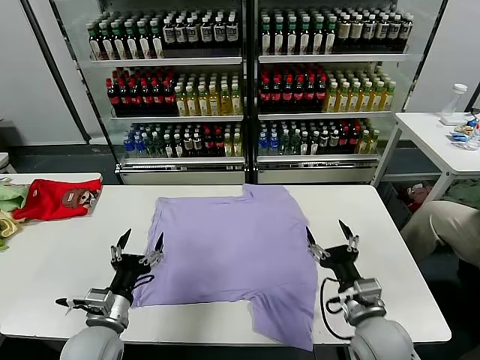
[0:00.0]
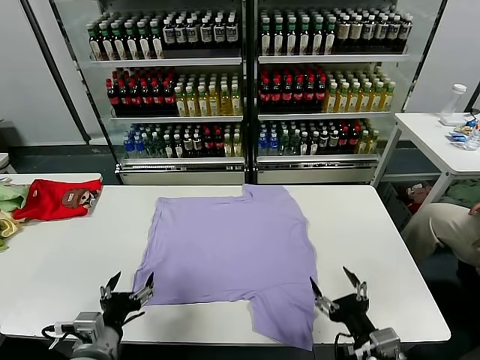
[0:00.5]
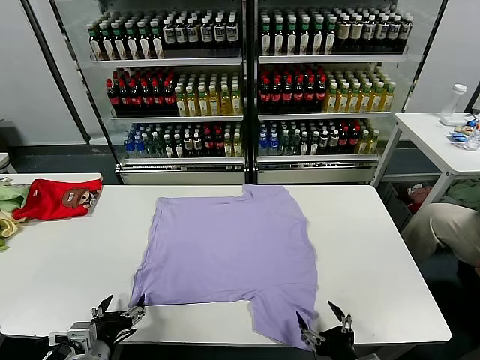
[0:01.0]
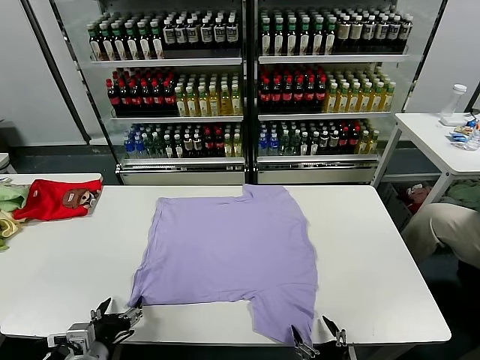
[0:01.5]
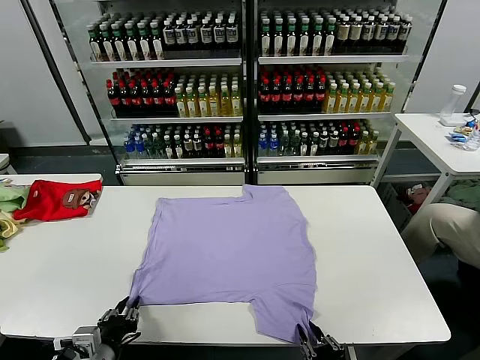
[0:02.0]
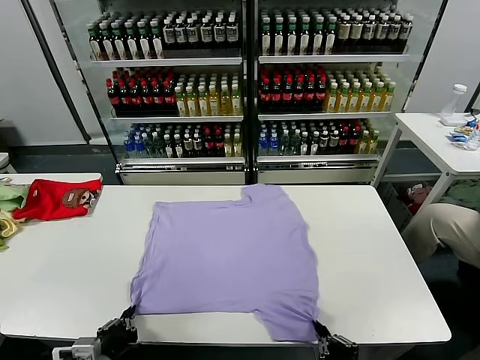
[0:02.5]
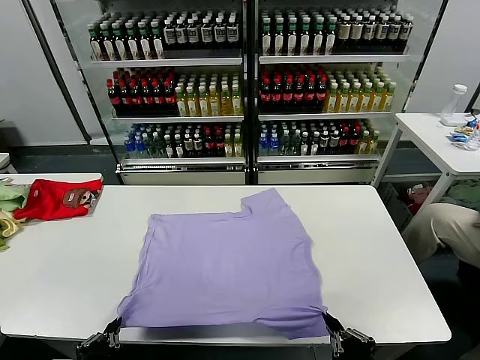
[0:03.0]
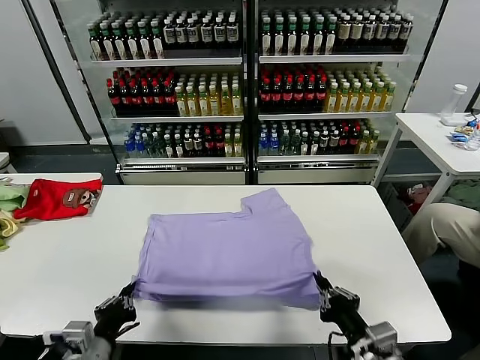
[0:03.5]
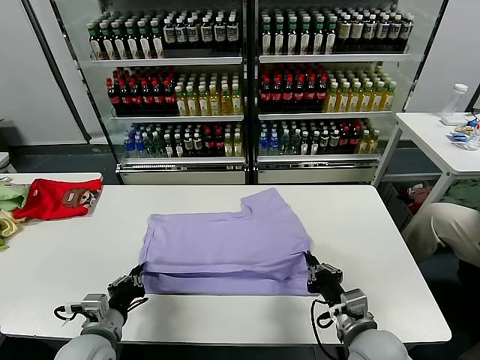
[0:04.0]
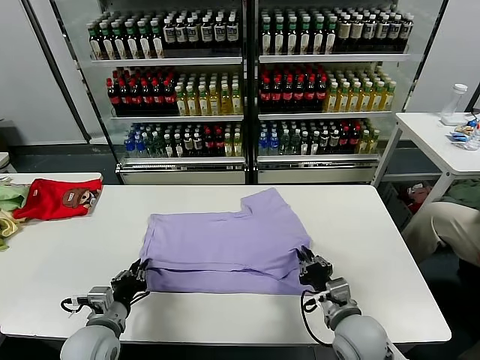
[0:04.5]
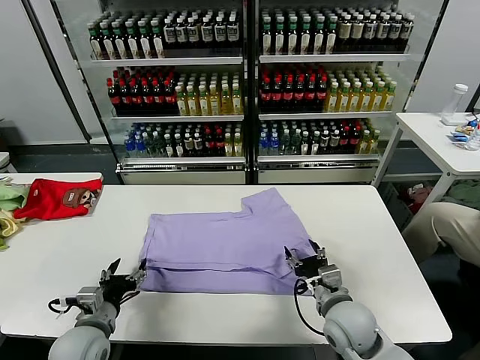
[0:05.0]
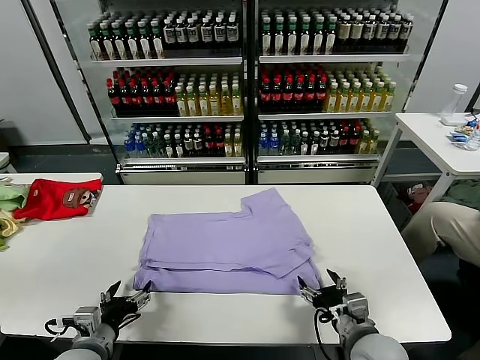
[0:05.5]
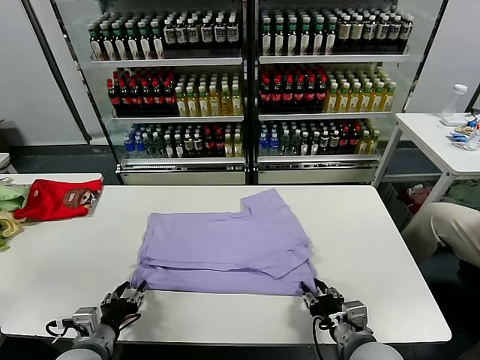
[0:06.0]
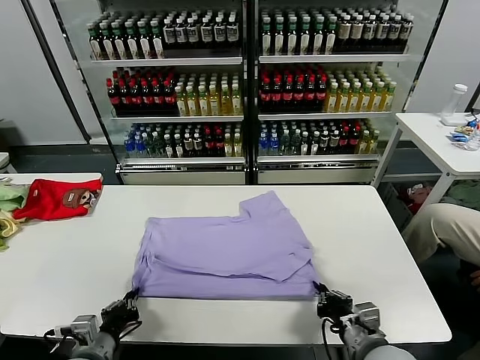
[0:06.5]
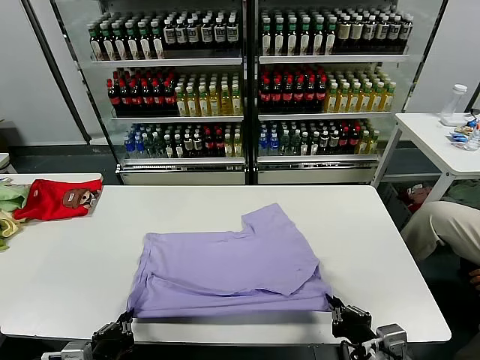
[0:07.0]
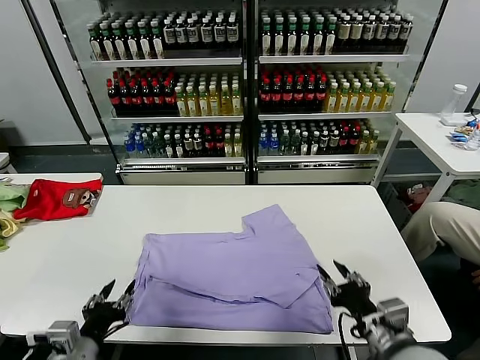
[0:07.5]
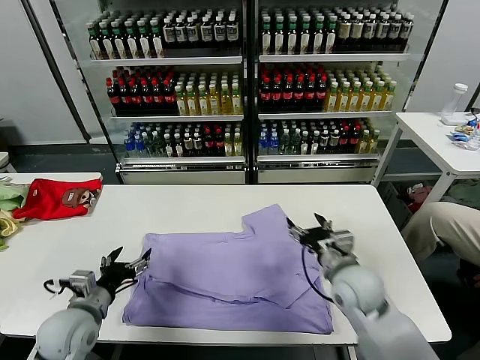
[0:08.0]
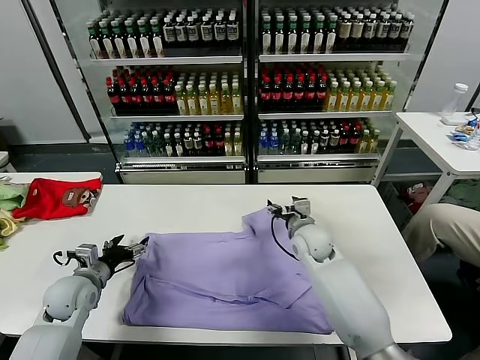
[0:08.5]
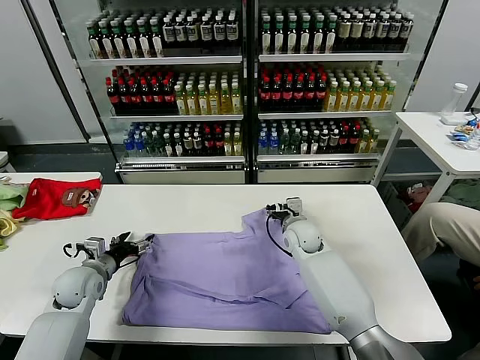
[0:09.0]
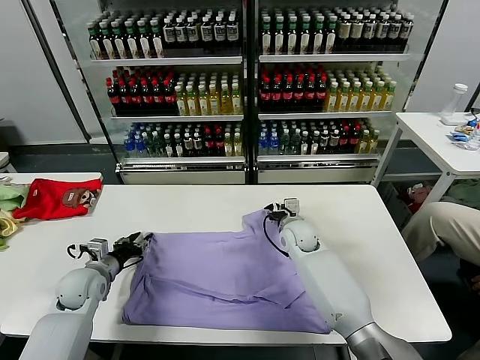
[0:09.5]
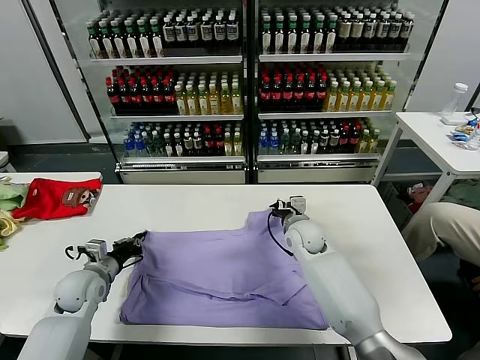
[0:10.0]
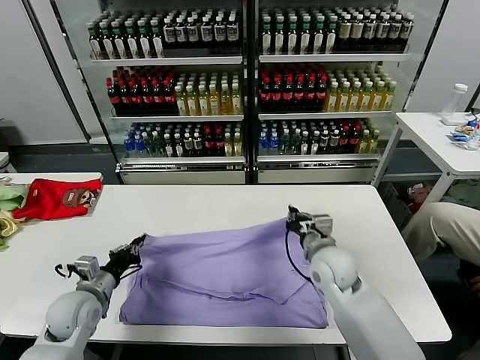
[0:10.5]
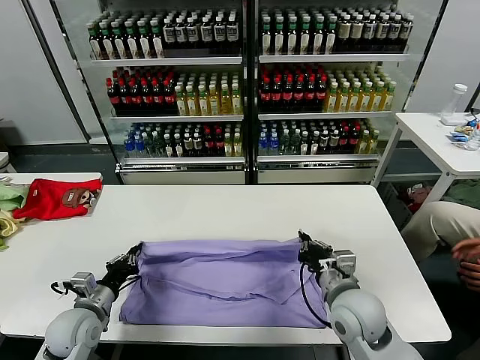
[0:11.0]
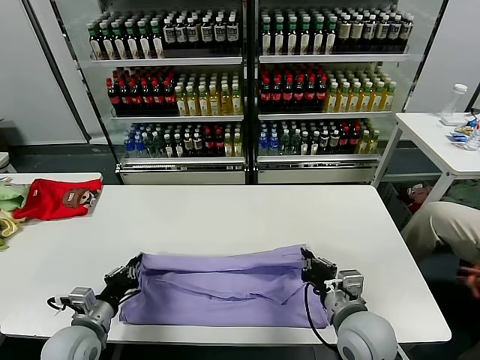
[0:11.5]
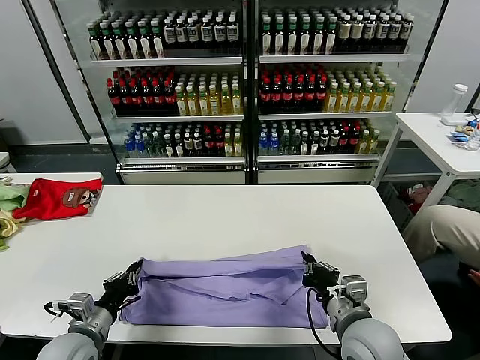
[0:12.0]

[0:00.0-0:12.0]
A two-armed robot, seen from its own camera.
Task of the whole recording: fold and organize the clothes.
Step, 0:00.0 to 0:02.0: use both grippers simultaneously to clamp the lower edge of the clothing fabric.
Step, 0:02.5 to 0:04.5: use both grippers to drag the lower edge of the fabric forward and fold it over the upper edge.
Step, 0:05.0 to 0:07.0: Drag the clothes downward with both gripper.
Step, 0:07.5 to 0:09.5: use both grippers simultaneously to clamp the upper edge of the clothing fabric.
0:02.0 to 0:04.0: The right gripper moves forward, about 15 cm. Meanwhile the left gripper shifts approximately 5 cm forward.
0:04.0 to 0:06.0: The left gripper opens; the right gripper opens and closes again.
0:06.0 to 0:08.0: The left gripper goes roughly 5 cm forward, and opens its fingers. Meanwhile the right gripper goes about 15 cm forward, and opens up.
0:08.0 to 0:10.0: The grippers both shift forward by approximately 10 cm. The right gripper closes its fingers; the left gripper closes up.
0:10.0 to 0:12.0: The right gripper is displaced backward by approximately 25 cm, while the left gripper goes roughly 15 cm backward.

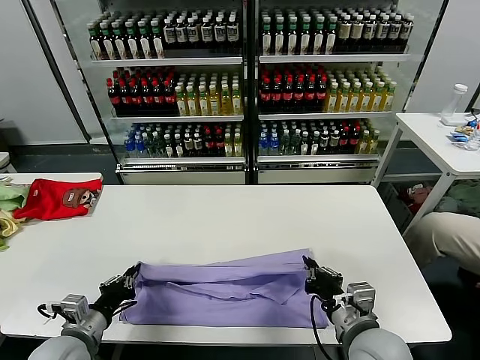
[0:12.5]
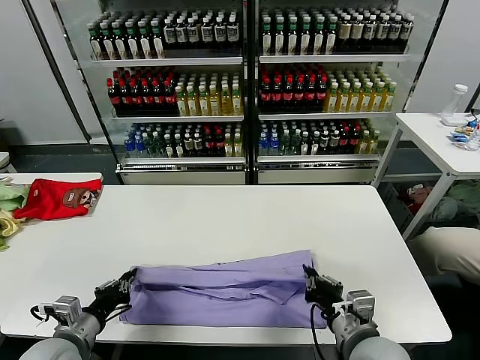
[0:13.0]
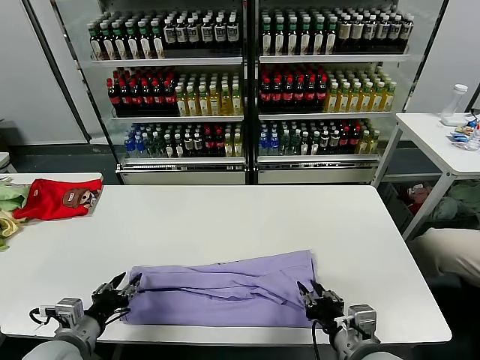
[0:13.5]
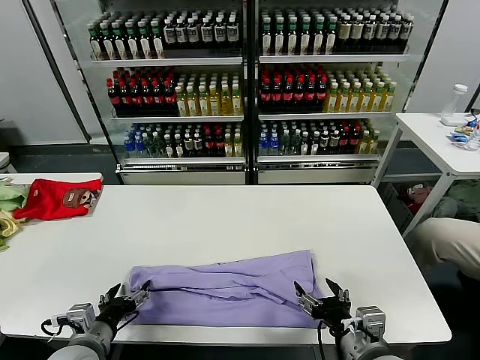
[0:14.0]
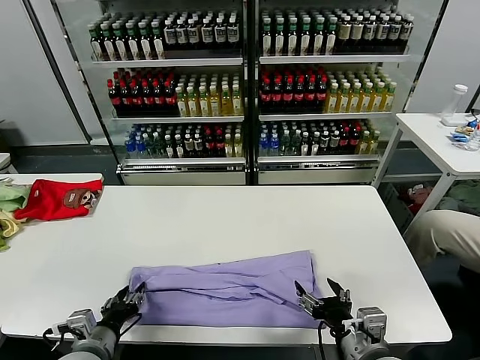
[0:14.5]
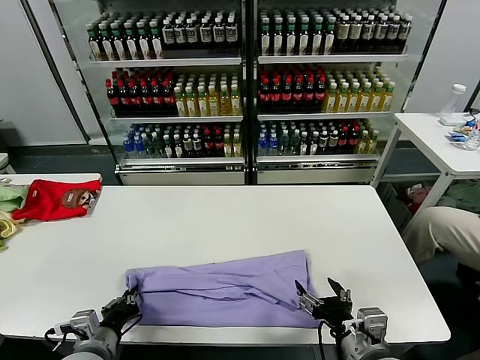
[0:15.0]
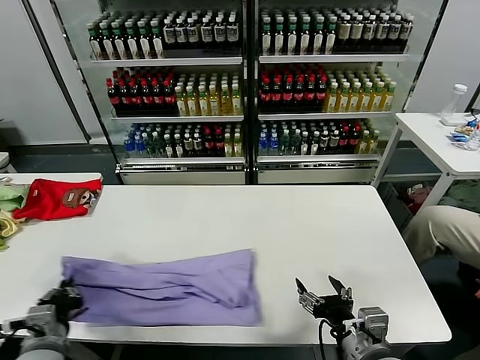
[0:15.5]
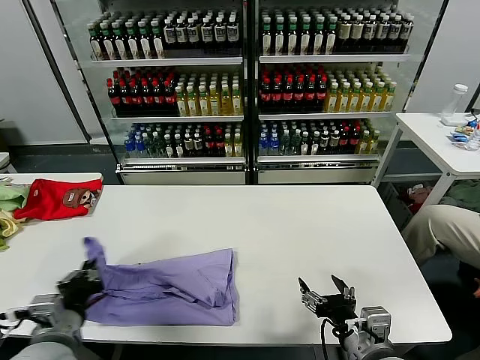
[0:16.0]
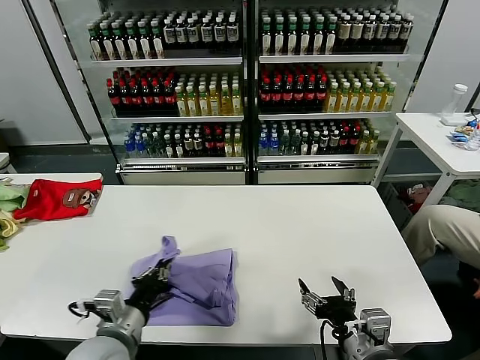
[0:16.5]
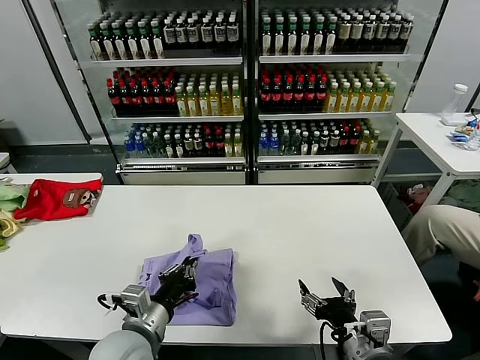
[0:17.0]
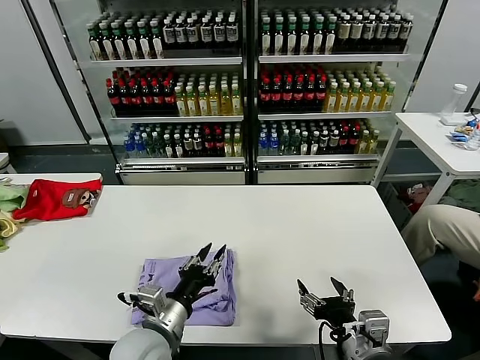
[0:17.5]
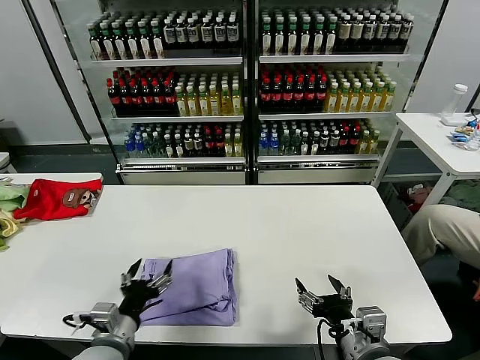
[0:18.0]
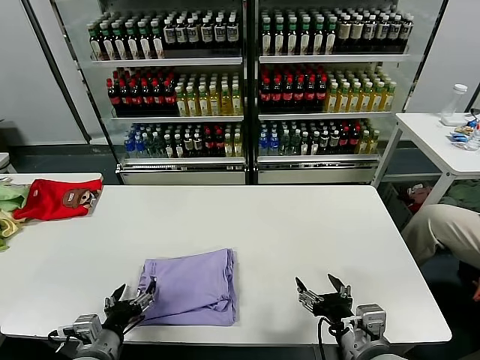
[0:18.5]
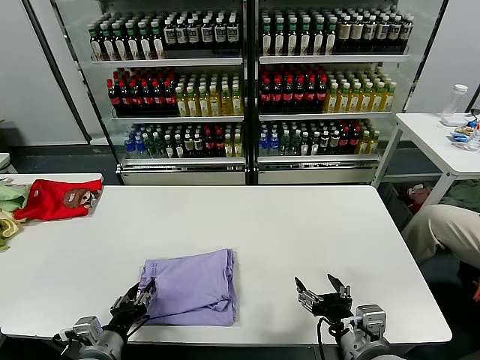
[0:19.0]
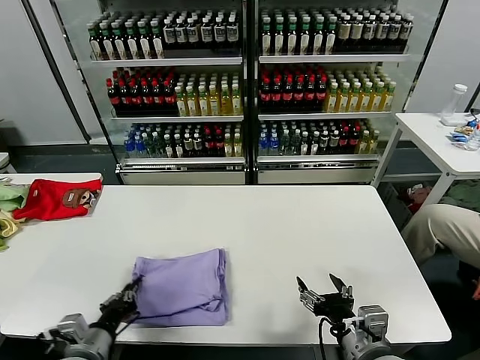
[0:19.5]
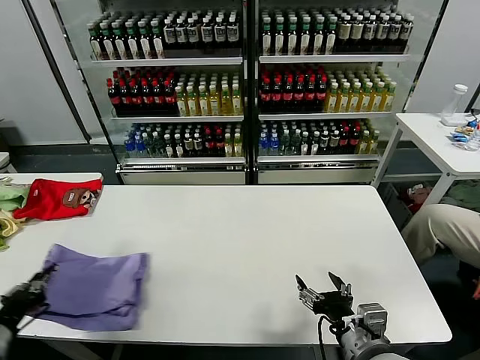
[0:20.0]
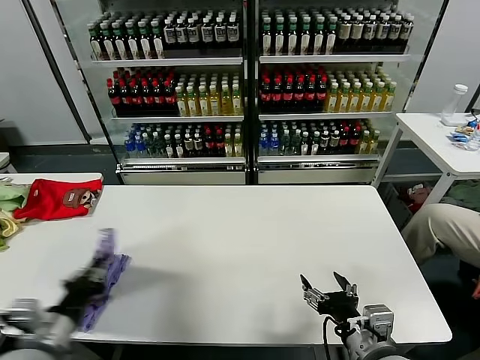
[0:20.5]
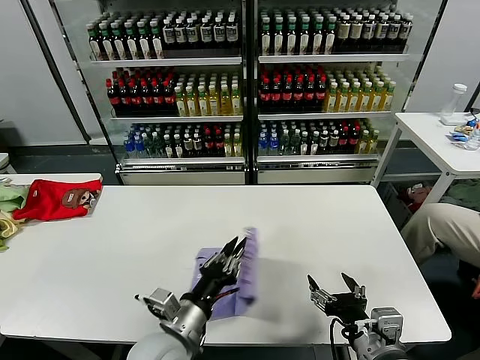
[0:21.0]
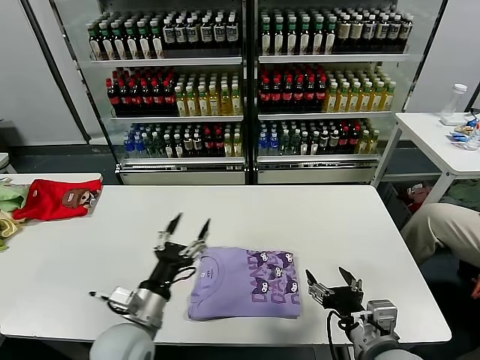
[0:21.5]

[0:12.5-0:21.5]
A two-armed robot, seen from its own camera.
Task of the whole recording: fold and organize the clothes.
Step, 0:13.5 to 0:14.5: use the left gripper to clamp the left edge of the fabric.
Step, 0:15.5 to 0:17.0: use the left gripper to drag the left edge of the fabric to the left and folds it over the right edge.
Step, 0:18.0 to 0:21.0: Flip the folded clothes over with left gripper.
0:12.5 to 0:14.5: The right gripper opens; the left gripper opens.
0:14.5 to 0:17.0: The left gripper moves to the right and upward, some 10 cm, and closes its fingers.
0:17.0 to 0:19.5: The left gripper is displaced to the left and downward by roughly 10 cm, and opens and closes again.
0:19.5 to 0:21.5: The left gripper moves left and right over approximately 30 cm, changing direction 2 times, and opens its fingers.

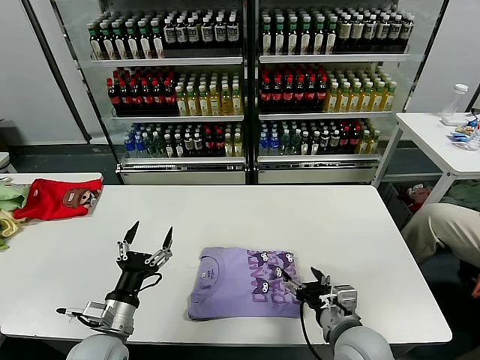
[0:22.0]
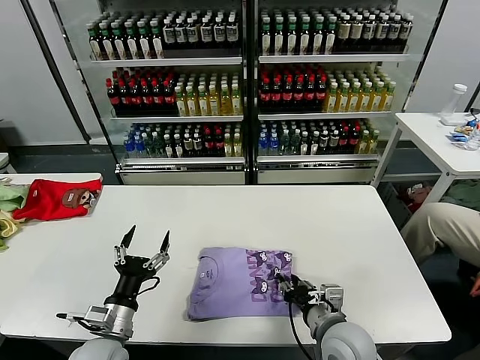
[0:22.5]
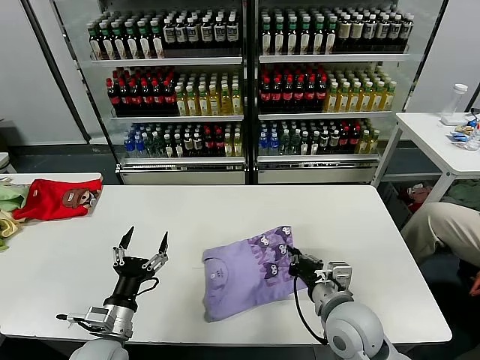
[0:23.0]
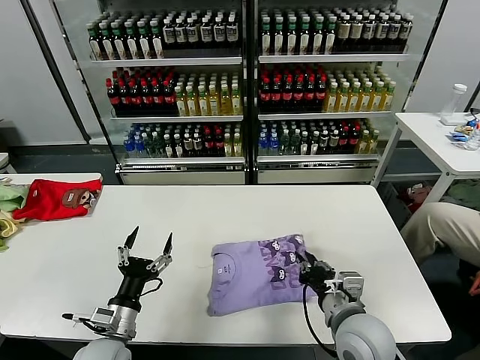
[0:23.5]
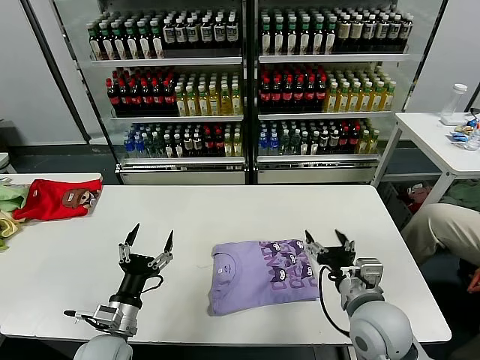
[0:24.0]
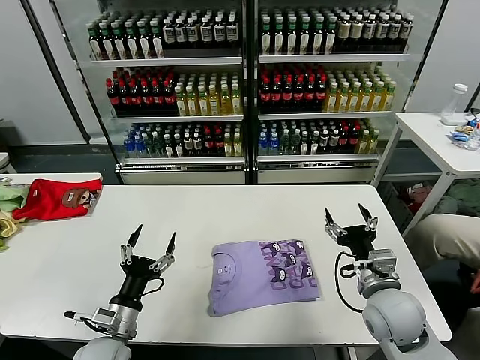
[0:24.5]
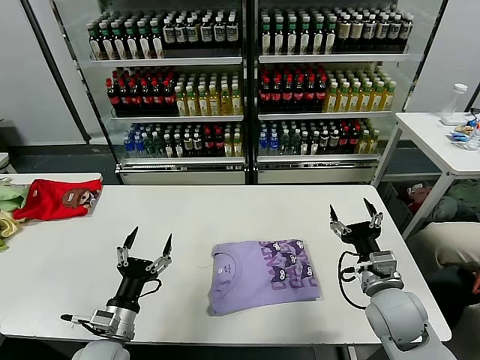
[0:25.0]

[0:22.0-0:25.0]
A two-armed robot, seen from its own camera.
Task of the whole recording: fold and organize the clothes.
Step, 0:22.0 to 0:23.5: Drag the clothes to the center of the table.
0:22.0 to 0:23.5: The right gripper closes its fingers.
0:23.5 to 0:25.0: The right gripper shifts some 10 cm to the right, and opens its fingers.
